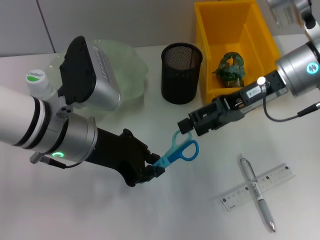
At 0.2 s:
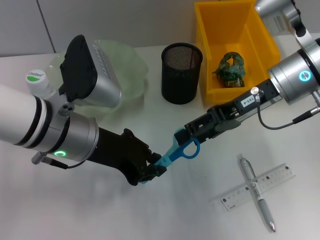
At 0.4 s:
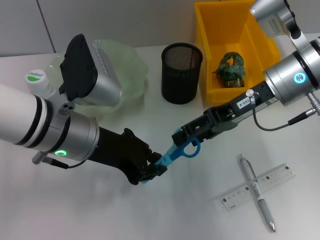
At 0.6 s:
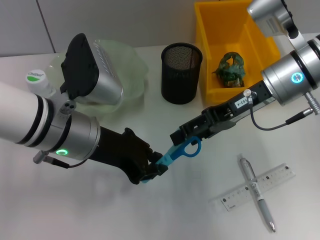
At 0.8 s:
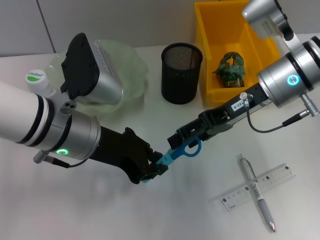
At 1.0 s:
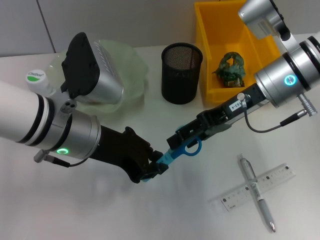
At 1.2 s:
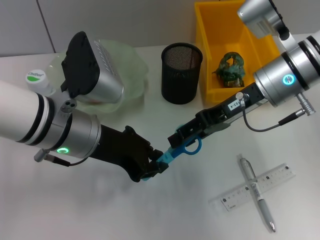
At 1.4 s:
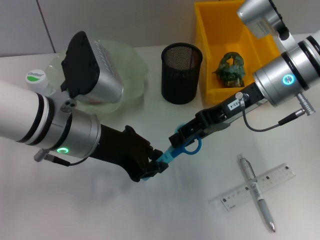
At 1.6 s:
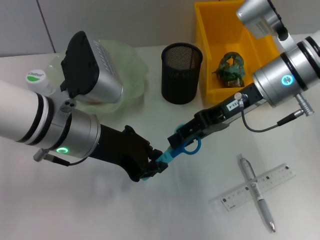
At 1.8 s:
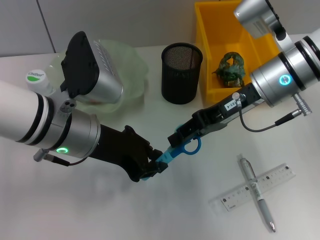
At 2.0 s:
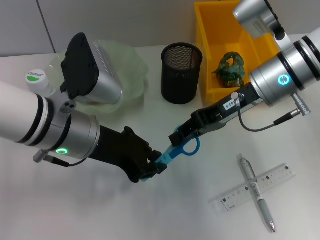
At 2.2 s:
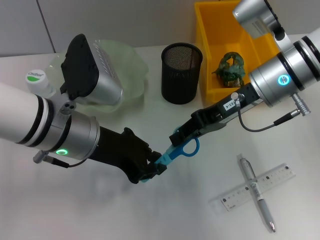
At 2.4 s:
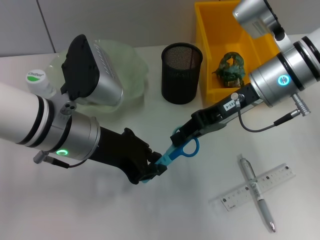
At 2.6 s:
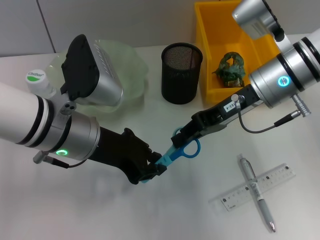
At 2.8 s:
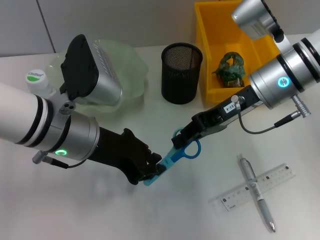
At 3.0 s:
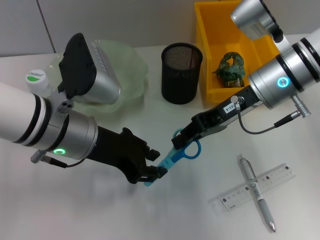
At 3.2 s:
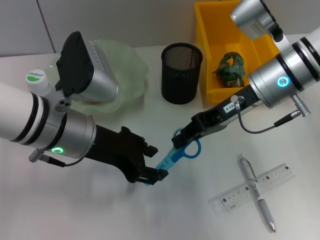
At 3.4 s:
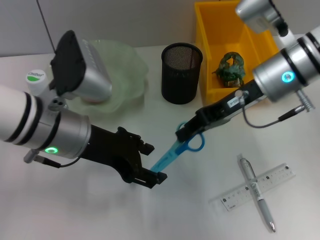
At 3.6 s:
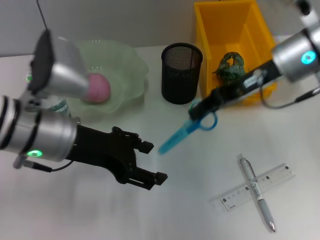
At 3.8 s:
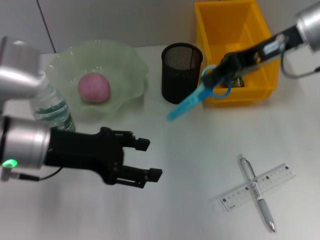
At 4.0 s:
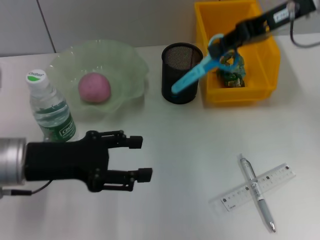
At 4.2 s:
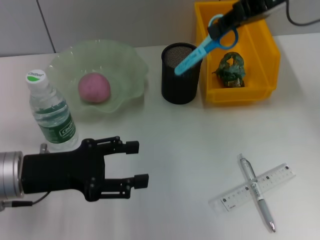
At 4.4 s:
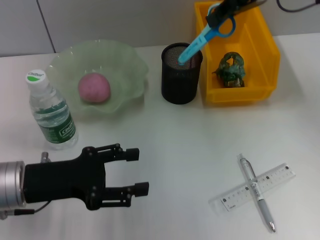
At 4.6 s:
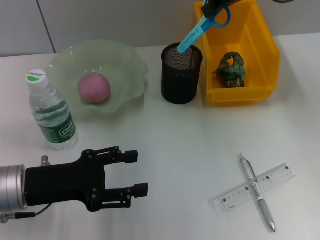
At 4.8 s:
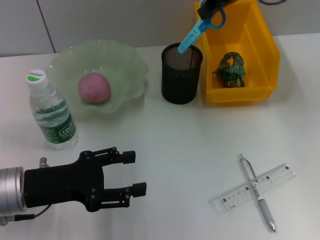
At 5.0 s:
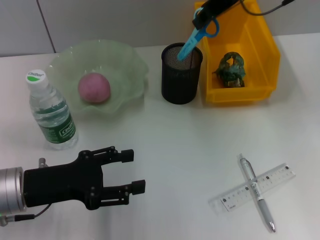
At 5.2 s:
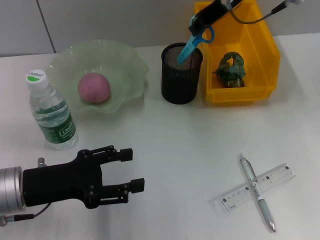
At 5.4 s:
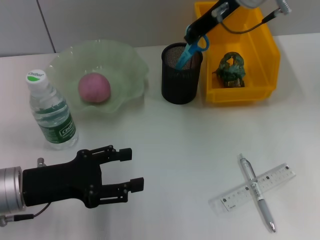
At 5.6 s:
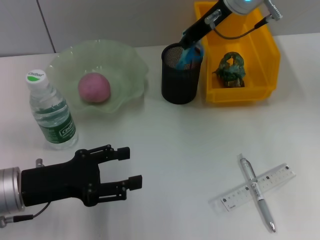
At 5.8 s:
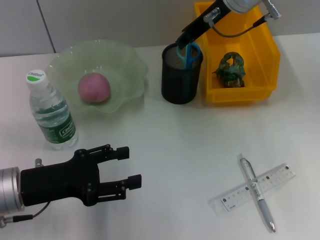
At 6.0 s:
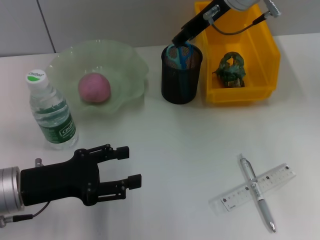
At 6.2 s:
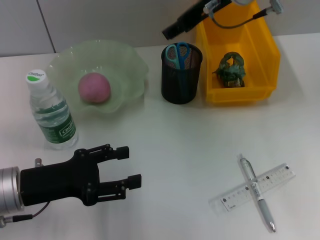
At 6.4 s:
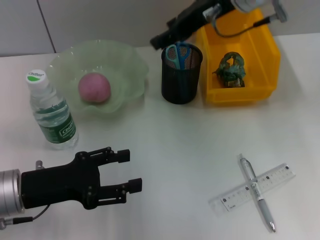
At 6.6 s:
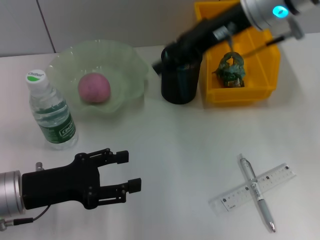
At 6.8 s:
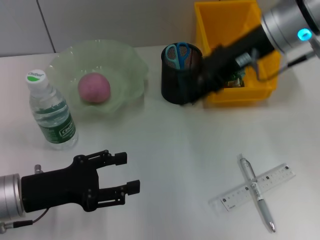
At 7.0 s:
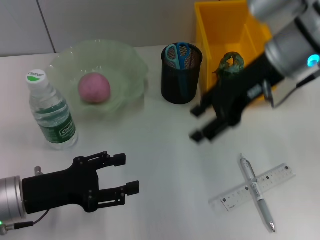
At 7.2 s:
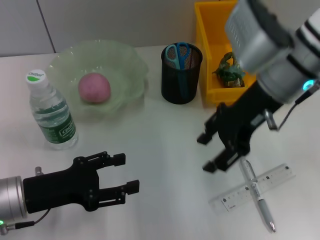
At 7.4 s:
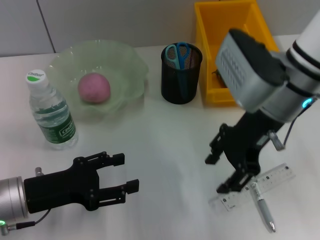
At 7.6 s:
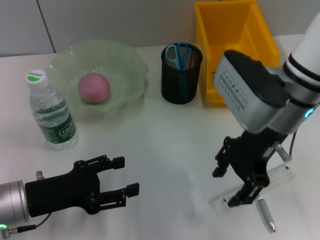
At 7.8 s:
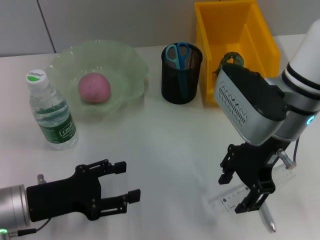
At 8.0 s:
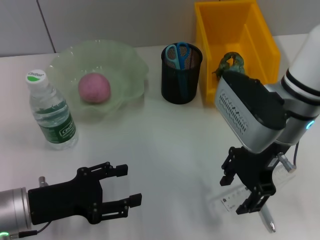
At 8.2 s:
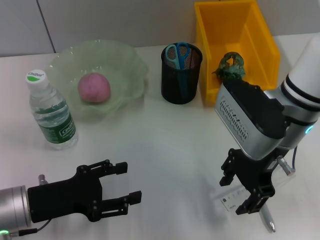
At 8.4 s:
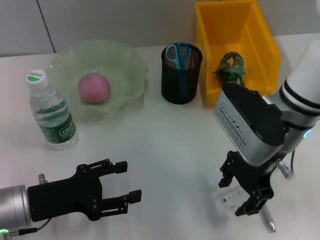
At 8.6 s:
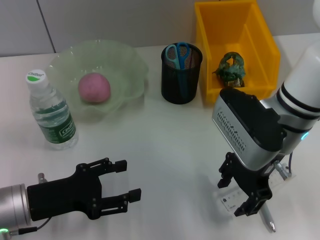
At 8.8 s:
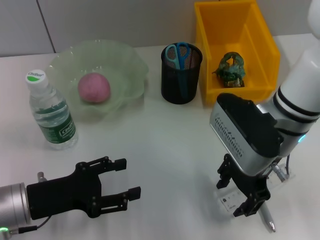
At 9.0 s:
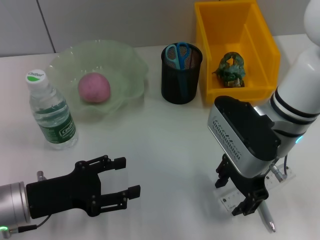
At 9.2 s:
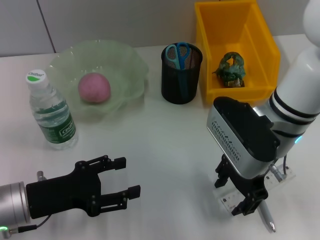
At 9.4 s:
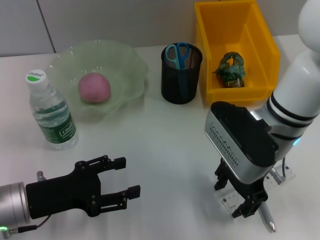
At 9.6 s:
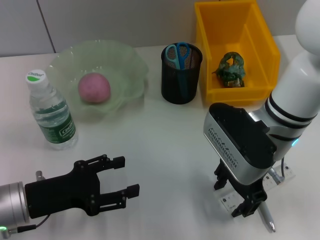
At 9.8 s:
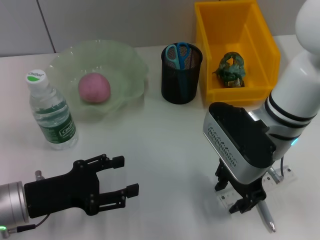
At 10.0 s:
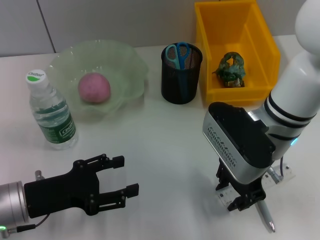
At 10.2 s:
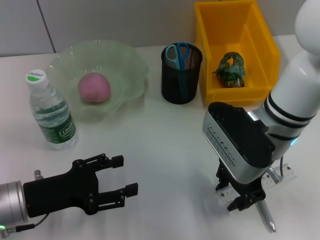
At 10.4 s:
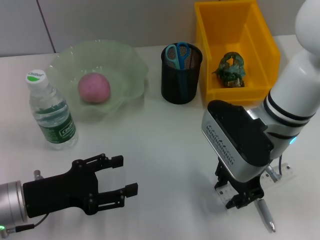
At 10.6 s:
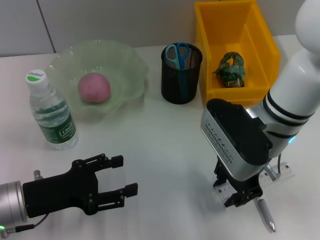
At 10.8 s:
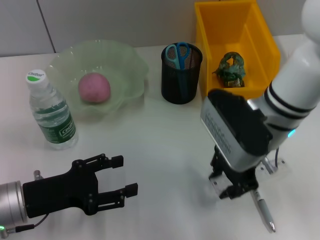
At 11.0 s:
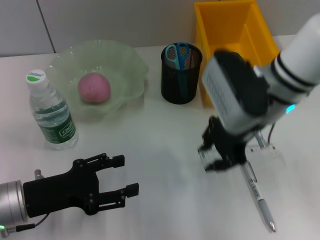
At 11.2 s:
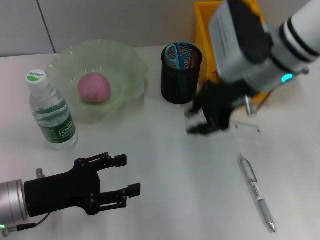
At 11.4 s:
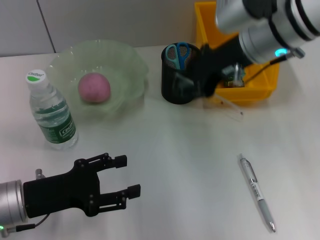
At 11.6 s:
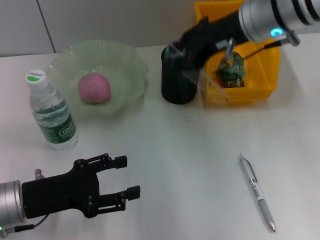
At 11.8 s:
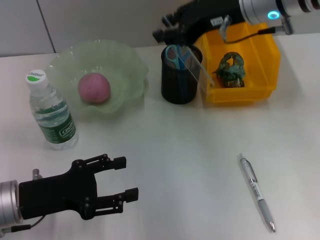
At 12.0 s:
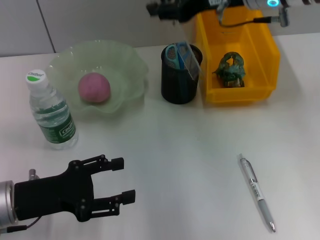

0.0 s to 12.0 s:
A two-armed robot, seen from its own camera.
Step, 0.0 to 2.8 s: Pass the blue scissors from the left hand to the right hand.
Step, 3.0 to 6.0 s: Place the blue scissors into the pen holder with the right hand.
Step, 6.2 to 10.0 s: Grab the ruler with the right hand.
0.0 to 1.6 s: The right gripper closes.
1.6 to 3.0 s: The right gripper closes.
3.0 to 4.4 s: The right gripper shifts approximately 15 cm upward and forward. Meanwhile the left gripper shifts about 10 cm to the left and downward, and opens its fingers.
4.4 to 6.0 s: The right gripper heads to the left and downward, covering approximately 10 cm, and opens.
6.0 to 7.6 s: The right gripper travels backward and downward by approximately 15 cm, and opens.
7.6 to 9.0 s: The grippers move only a little.
9.0 to 10.4 s: The two grippers keep their place.
10.4 to 12.0 s: The right gripper moves upward and forward, roughly 15 cm.

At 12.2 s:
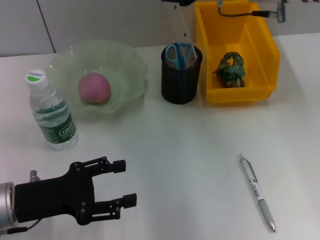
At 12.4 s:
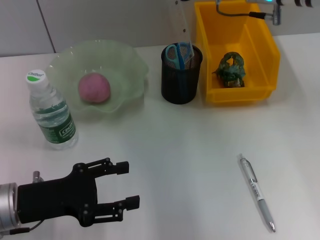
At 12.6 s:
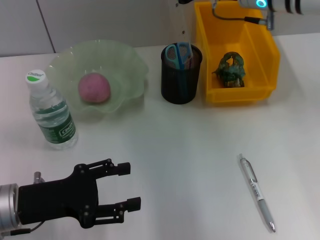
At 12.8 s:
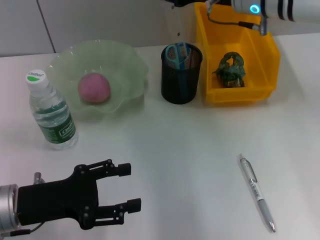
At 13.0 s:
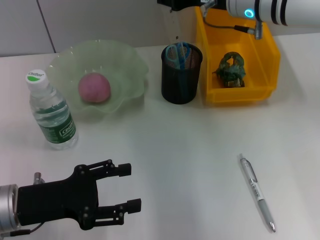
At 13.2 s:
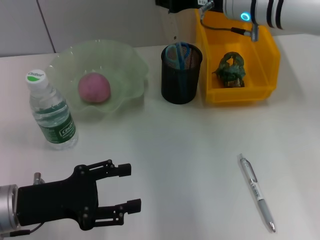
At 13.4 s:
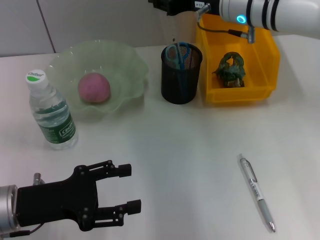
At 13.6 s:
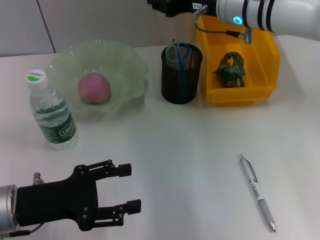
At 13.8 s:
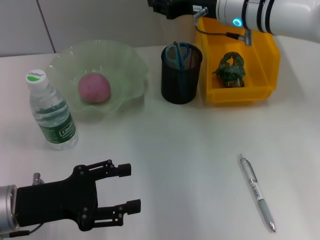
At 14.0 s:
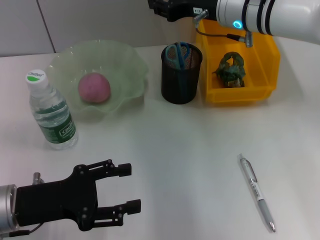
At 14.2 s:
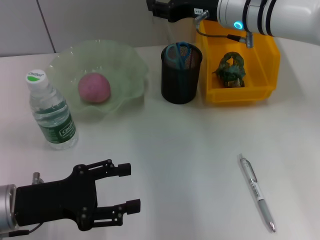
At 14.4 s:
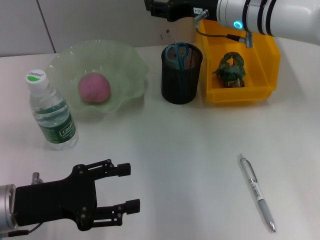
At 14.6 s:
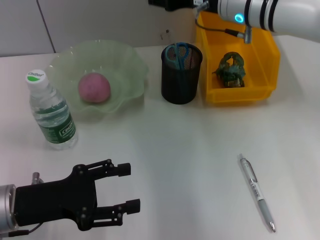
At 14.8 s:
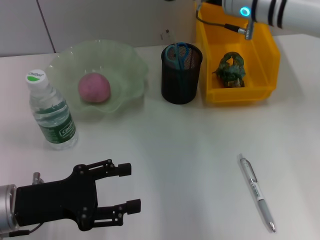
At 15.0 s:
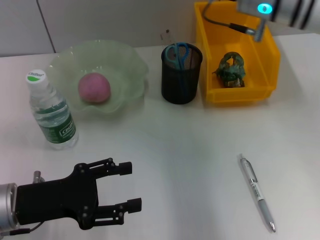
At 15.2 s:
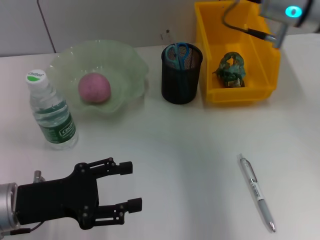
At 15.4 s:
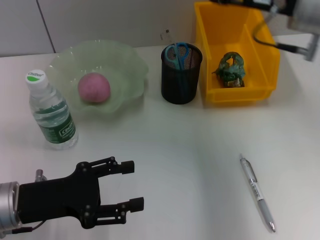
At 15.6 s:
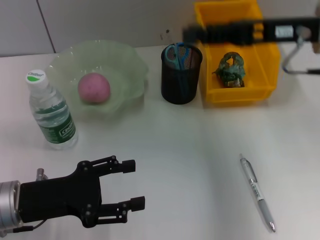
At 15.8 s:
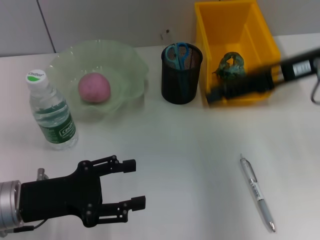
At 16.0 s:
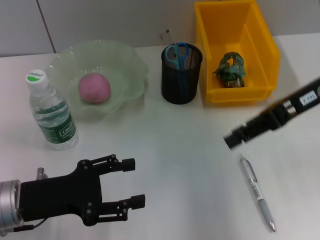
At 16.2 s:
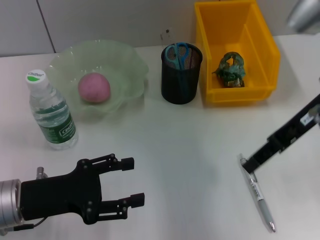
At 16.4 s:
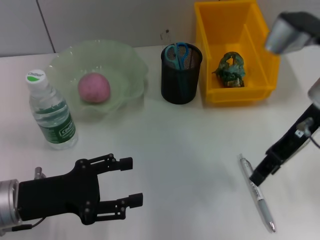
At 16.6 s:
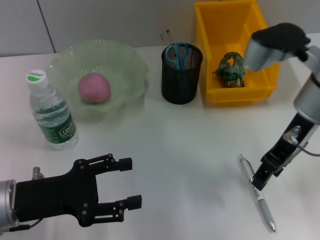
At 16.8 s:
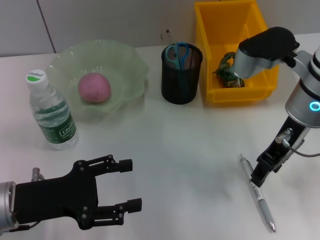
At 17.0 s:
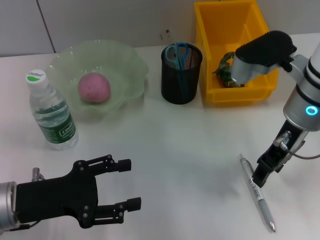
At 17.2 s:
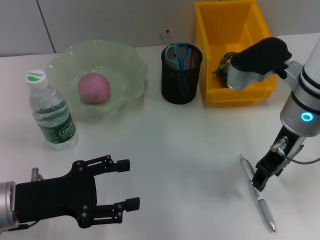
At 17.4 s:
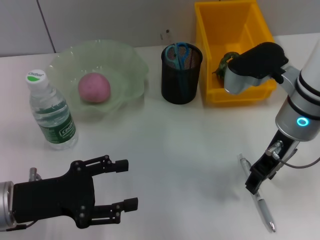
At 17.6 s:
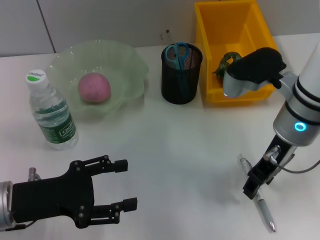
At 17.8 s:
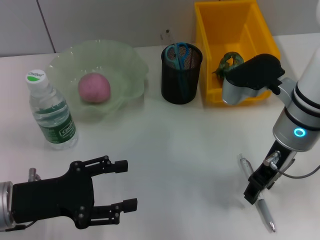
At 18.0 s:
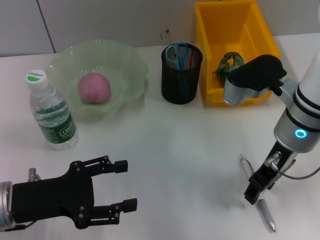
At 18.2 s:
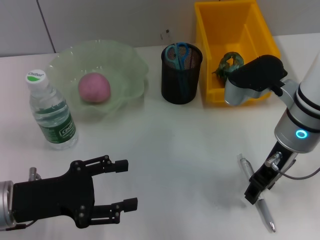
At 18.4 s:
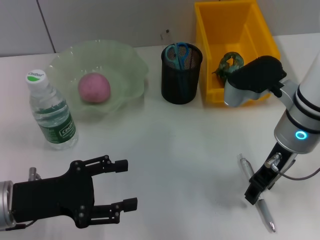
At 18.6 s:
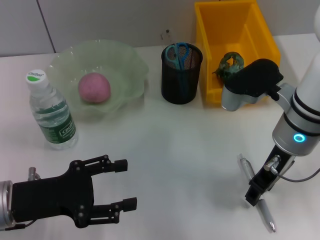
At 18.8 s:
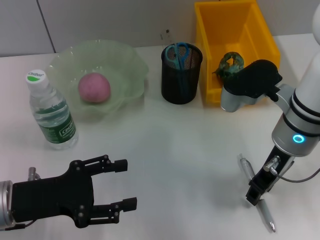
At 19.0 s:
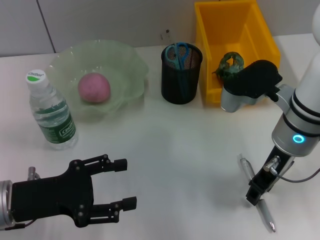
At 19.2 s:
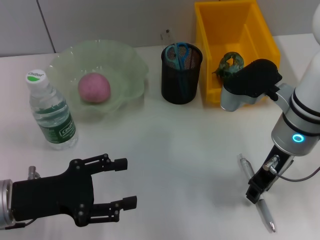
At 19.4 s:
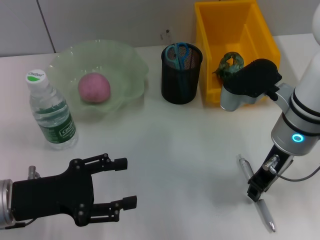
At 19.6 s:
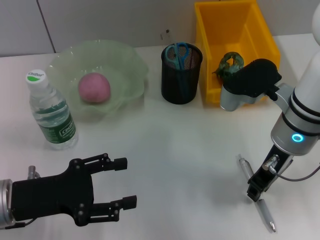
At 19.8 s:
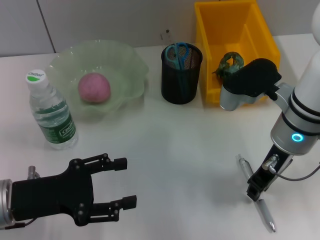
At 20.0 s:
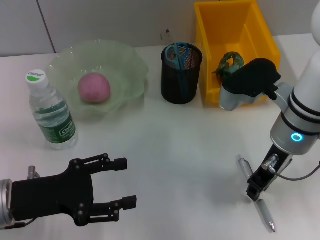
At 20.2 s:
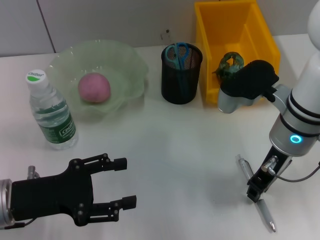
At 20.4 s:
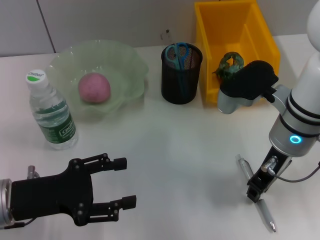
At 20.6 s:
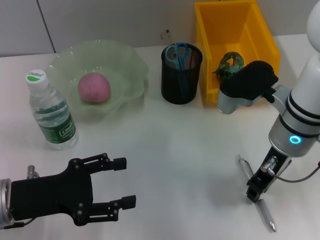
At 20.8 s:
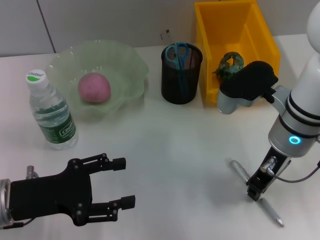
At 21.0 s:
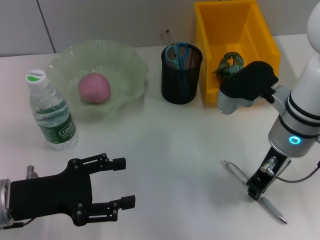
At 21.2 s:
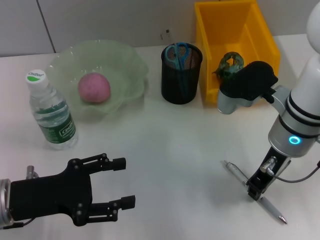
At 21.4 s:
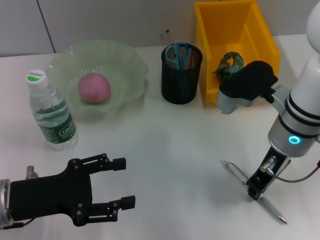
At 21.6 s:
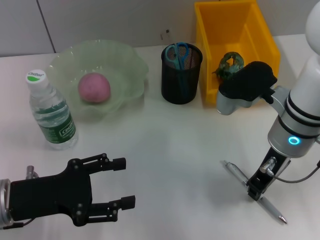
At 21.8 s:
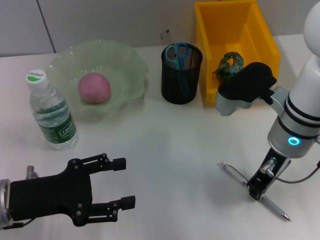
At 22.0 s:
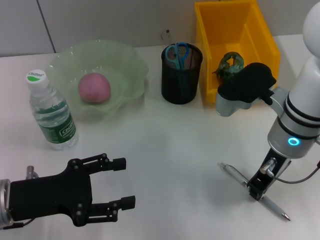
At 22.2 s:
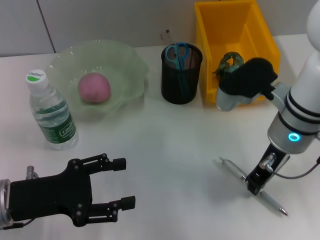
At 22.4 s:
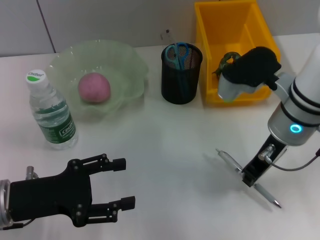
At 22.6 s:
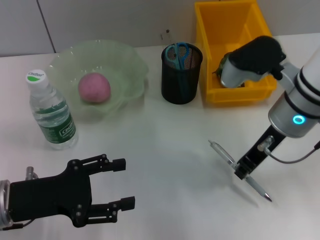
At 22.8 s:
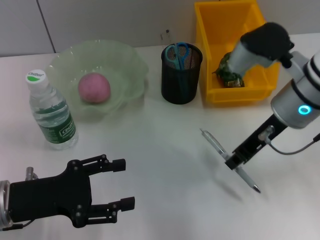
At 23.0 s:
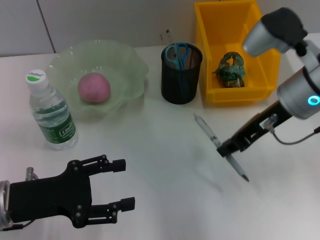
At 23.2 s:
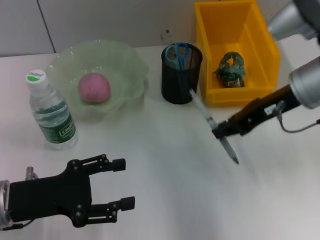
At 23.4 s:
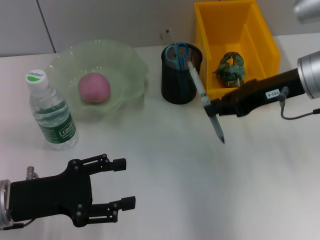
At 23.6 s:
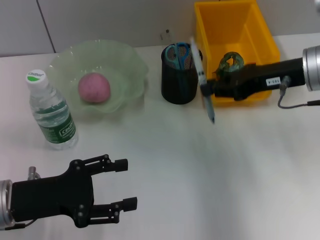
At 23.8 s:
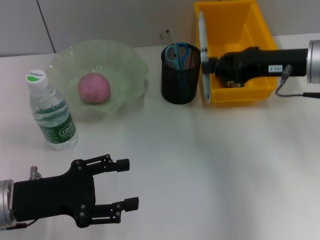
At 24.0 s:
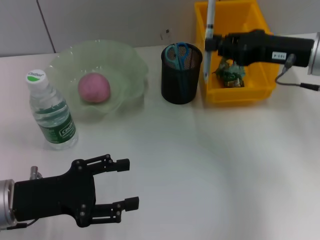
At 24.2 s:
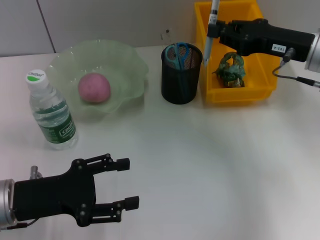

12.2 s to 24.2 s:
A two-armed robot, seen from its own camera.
Step, 12.2 to 14.4 s: Place the ruler into the pen holder with the right hand.
Step, 14.6 to 21.8 s: Grab the gray spring-action pen with the right hand.
12.2 to 13.8 s: The right gripper moves downward, about 5 cm.
13.8 to 15.2 s: The right gripper shifts about 5 cm backward.
15.2 to 16.6 s: The right gripper ends up roughly 5 cm from where it was.
16.6 to 18.2 s: The grippers make only small movements.
18.2 to 21.2 s: Neither gripper changes place.
21.2 to 22.6 s: The grippers move only a little.
22.6 to 24.2 s: The right gripper moves to the right, about 10 cm.
